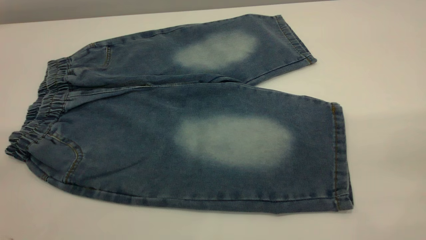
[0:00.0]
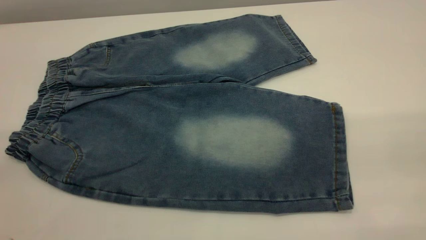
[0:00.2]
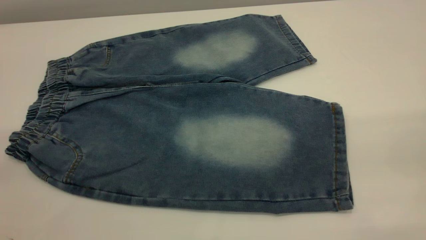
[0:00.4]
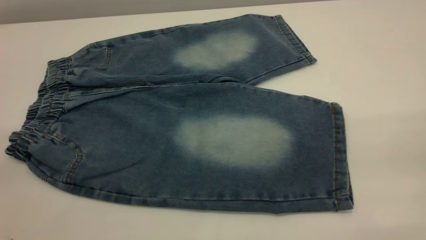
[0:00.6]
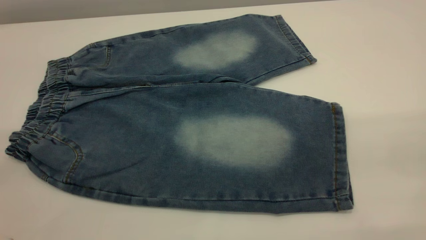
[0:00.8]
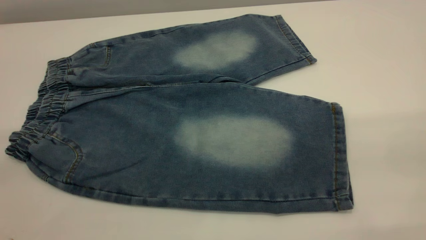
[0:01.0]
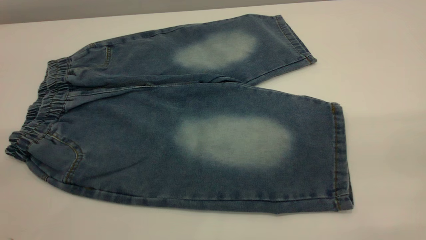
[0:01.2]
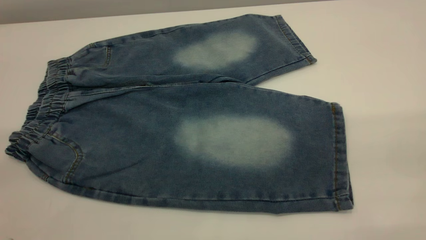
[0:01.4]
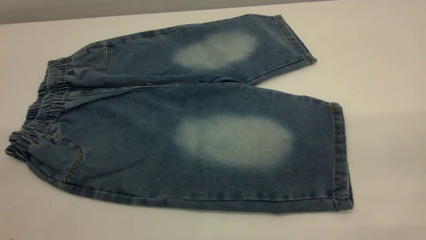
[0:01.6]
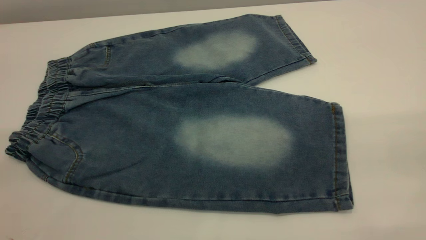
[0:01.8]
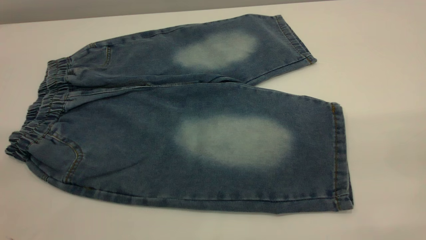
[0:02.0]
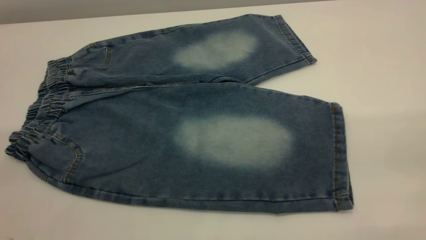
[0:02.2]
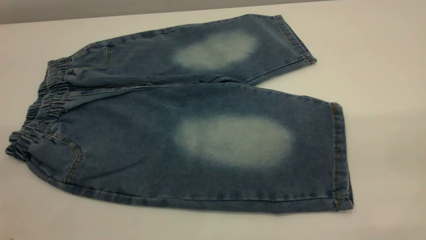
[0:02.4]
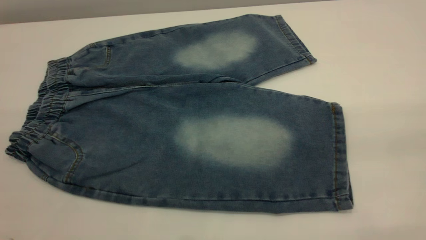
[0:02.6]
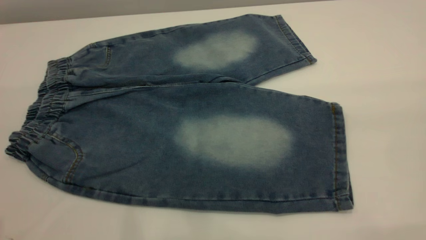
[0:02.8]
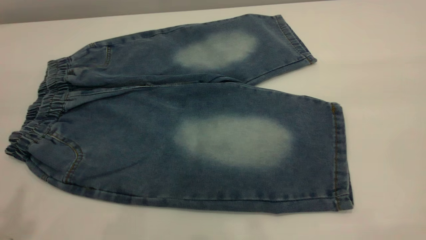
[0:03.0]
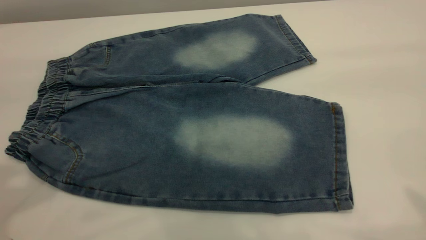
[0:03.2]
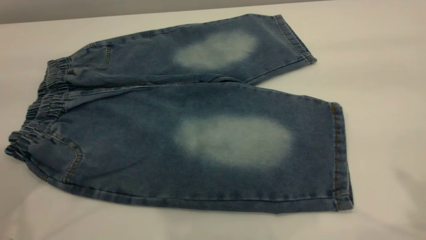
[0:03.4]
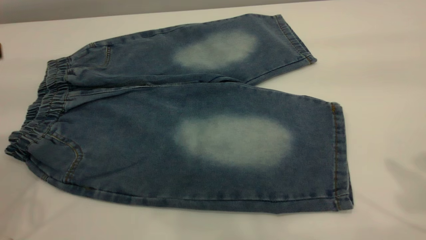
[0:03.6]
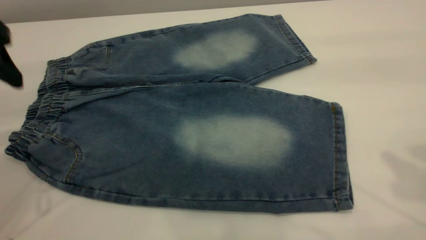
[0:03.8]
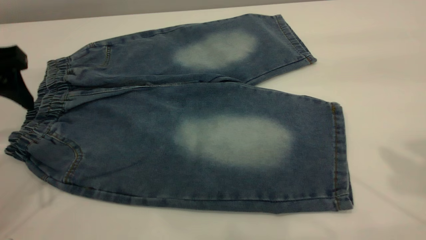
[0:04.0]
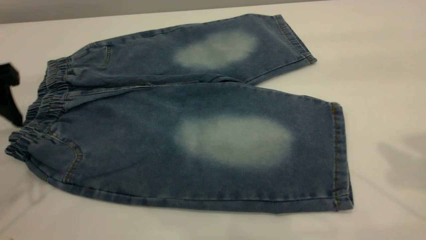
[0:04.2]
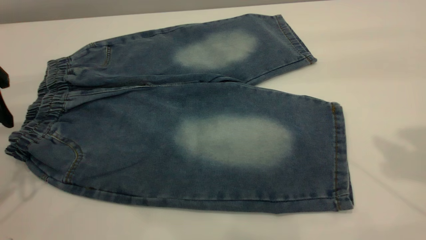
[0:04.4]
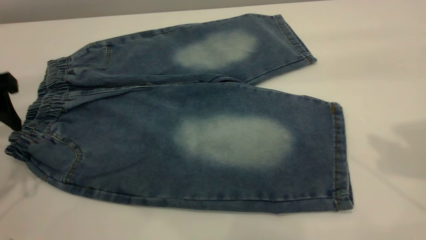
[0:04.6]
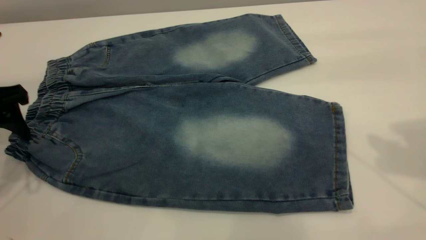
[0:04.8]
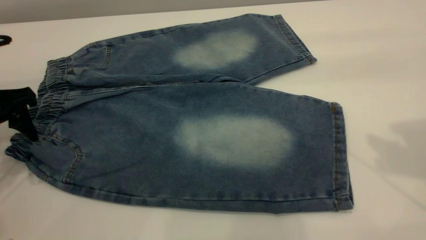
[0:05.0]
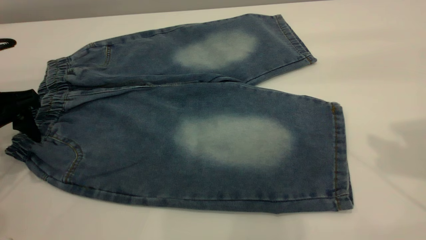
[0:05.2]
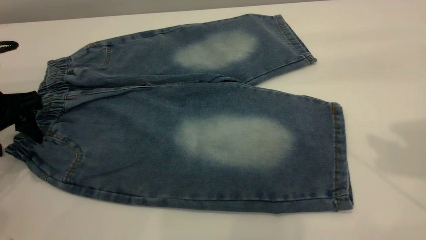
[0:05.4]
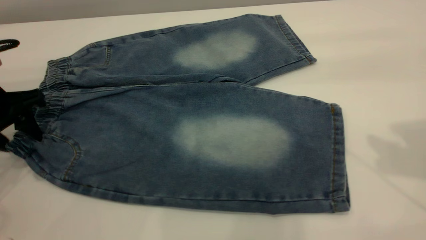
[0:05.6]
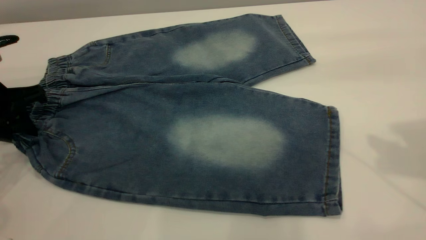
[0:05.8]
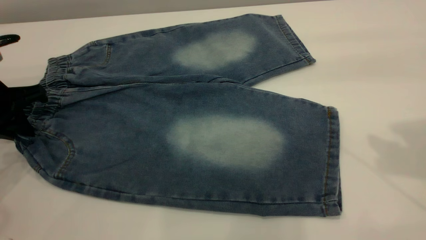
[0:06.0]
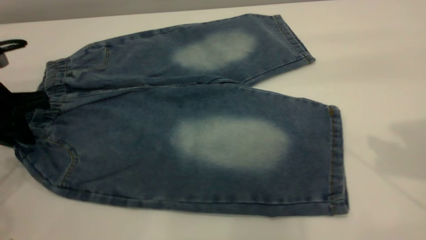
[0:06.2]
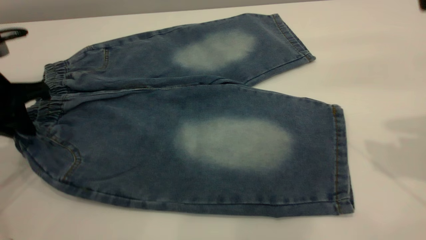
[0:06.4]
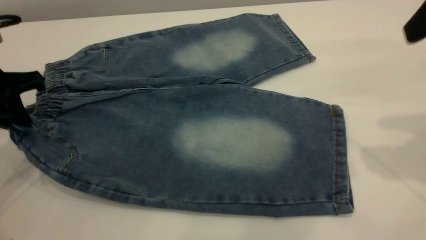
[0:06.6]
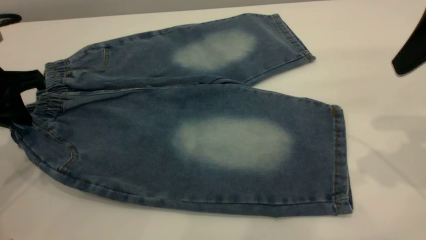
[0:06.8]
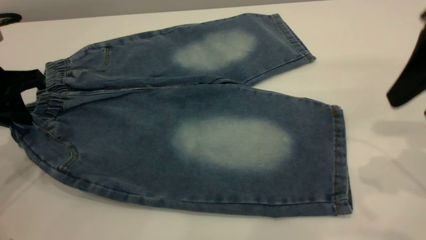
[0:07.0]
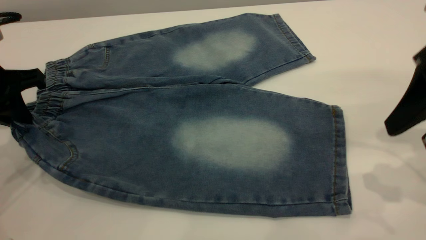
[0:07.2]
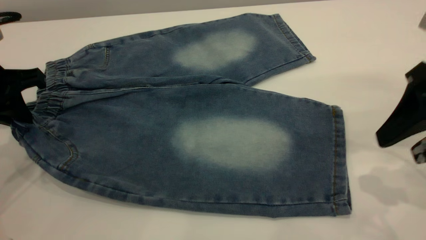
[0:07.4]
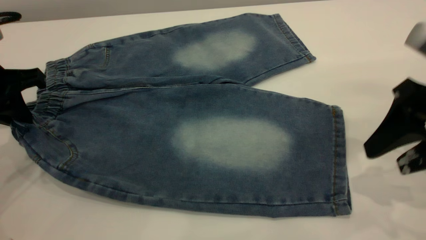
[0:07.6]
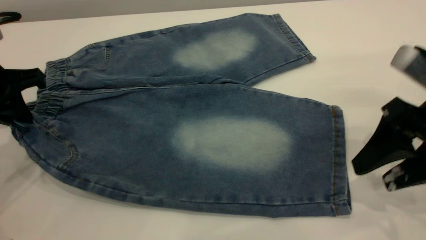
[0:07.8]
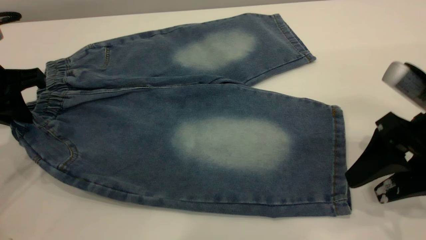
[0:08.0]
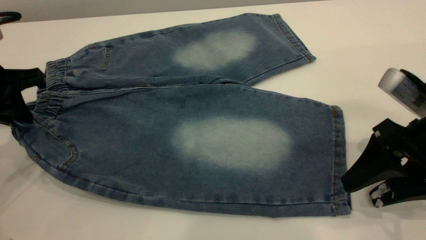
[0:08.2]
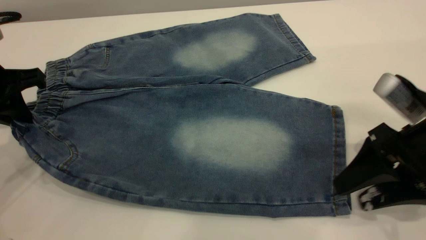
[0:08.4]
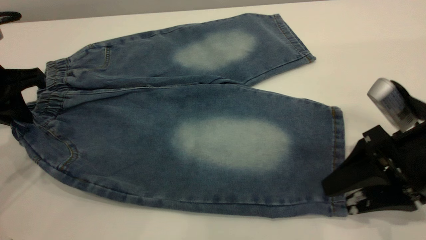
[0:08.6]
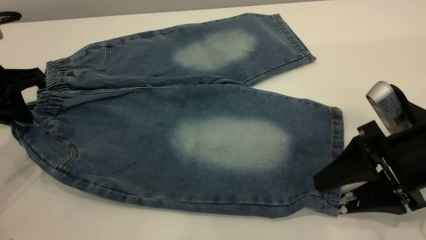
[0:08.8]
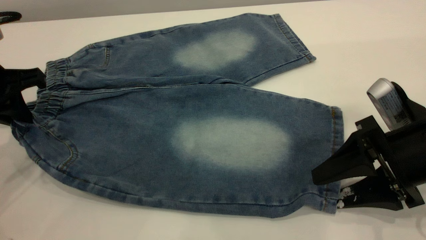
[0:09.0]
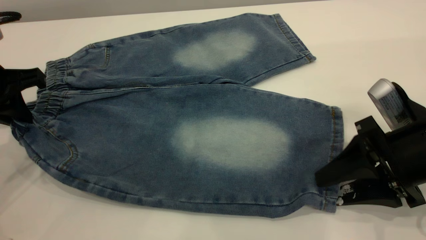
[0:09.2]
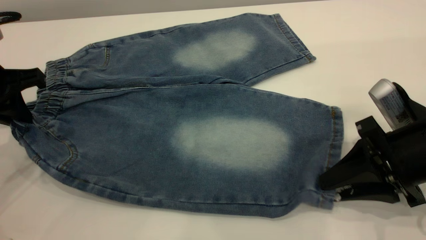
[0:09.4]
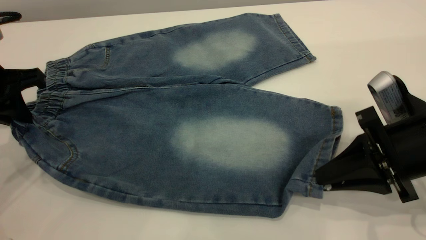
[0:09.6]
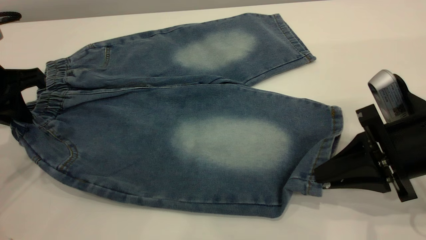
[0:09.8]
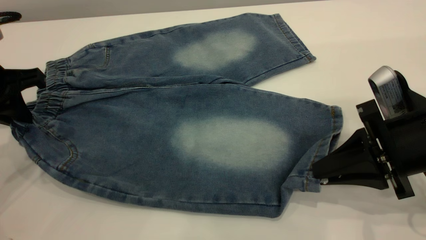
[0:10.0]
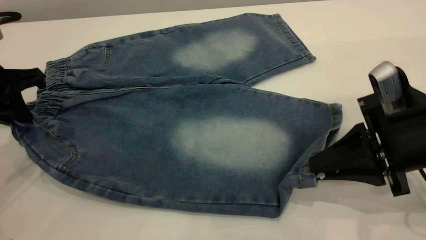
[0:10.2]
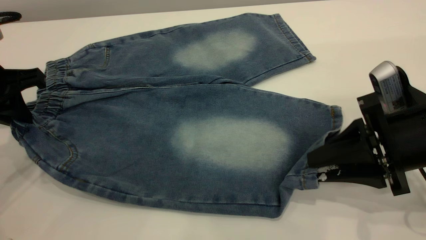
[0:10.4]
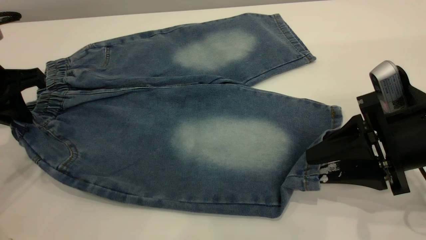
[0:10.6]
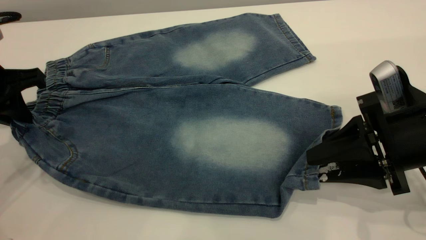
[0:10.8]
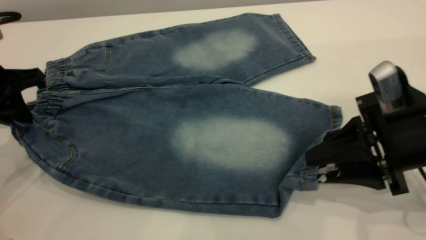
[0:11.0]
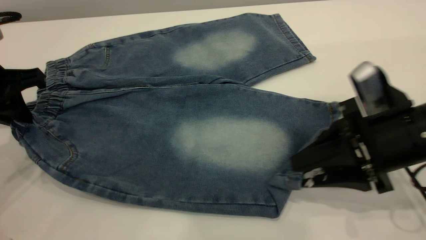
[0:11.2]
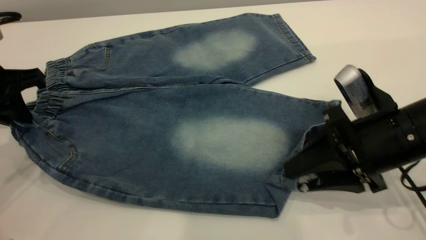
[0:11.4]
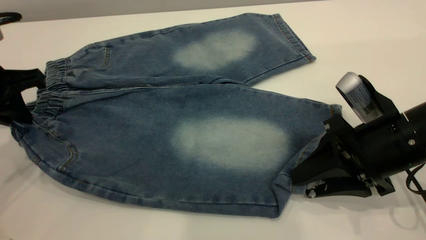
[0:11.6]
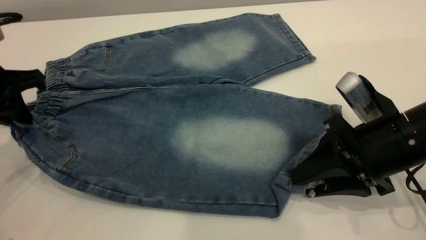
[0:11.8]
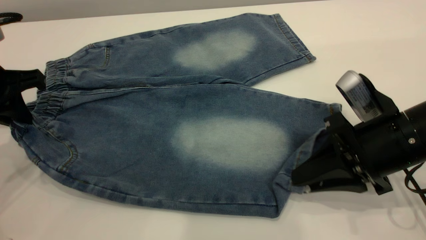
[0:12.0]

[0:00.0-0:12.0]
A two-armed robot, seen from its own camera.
0:00.0 to 0:01.6: Neither gripper changes place.
0:03.0 to 0:04.4: The left gripper shifts about 25 cm downward and forward.
0:04.4 to 0:06.0: The left gripper is displaced downward by some 5 cm, and closes up.
0:06.0 to 0:07.6: The right gripper moves downward, approximately 15 cm.
0:07.6 to 0:09.0: The right gripper moves downward, roughly 5 cm.
0:09.0 to 0:10.4: The right gripper closes up.
0:10.4 to 0:12.0: The right gripper closes its fingers.

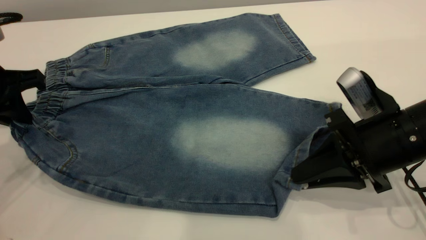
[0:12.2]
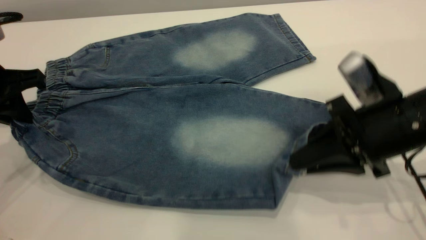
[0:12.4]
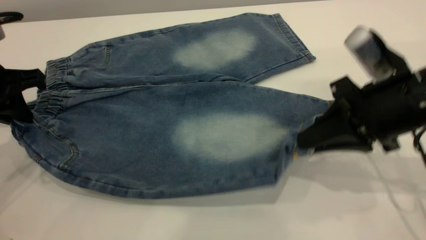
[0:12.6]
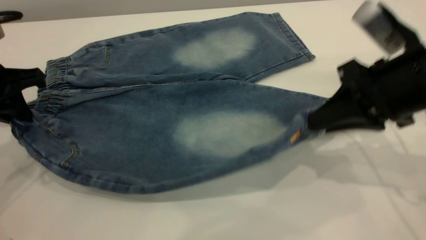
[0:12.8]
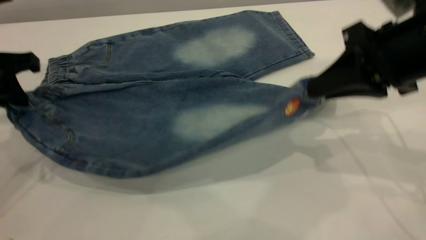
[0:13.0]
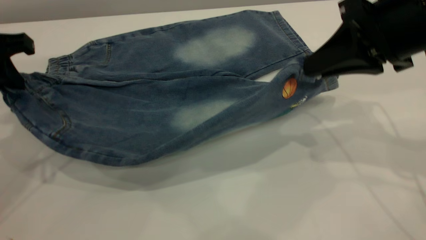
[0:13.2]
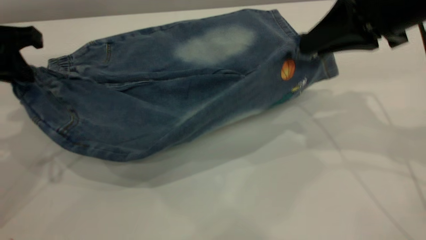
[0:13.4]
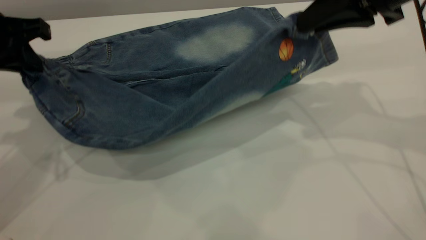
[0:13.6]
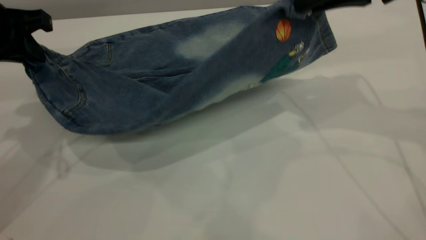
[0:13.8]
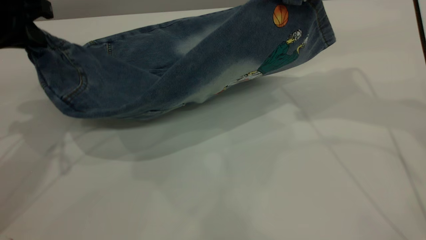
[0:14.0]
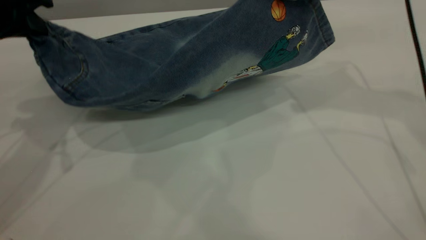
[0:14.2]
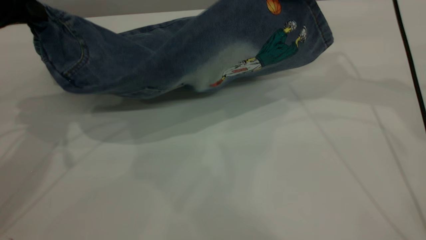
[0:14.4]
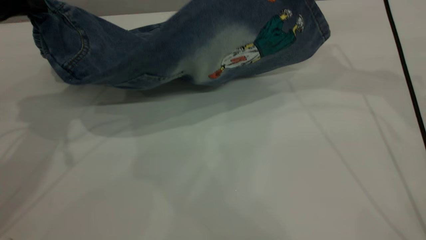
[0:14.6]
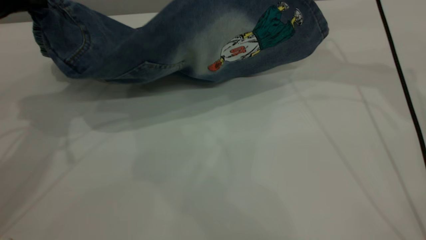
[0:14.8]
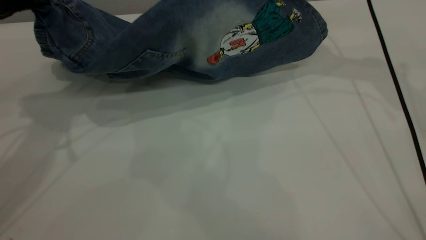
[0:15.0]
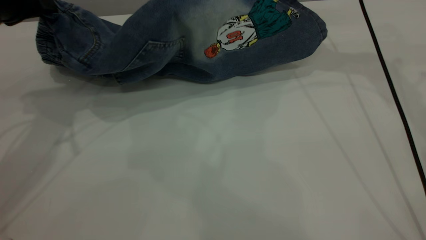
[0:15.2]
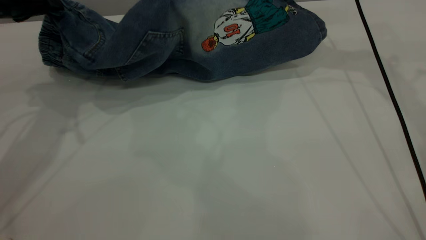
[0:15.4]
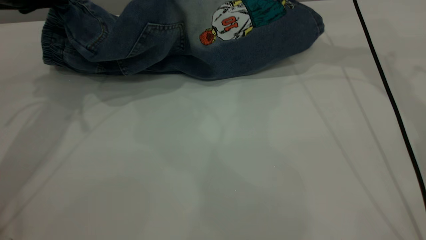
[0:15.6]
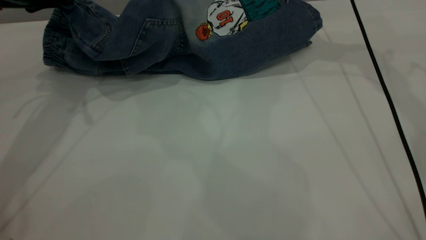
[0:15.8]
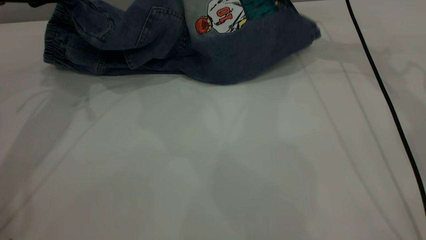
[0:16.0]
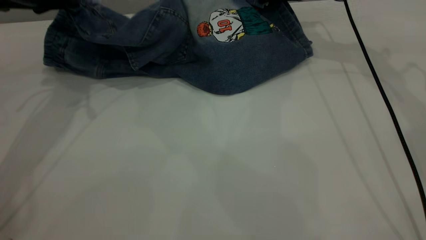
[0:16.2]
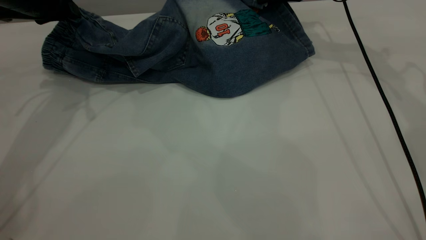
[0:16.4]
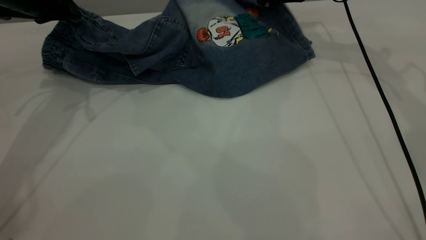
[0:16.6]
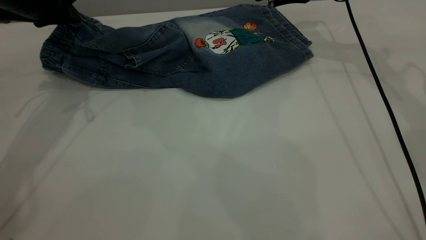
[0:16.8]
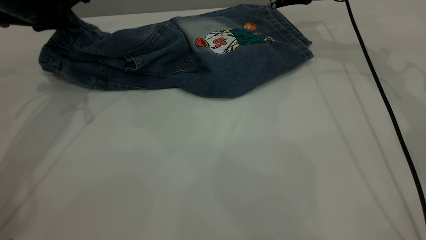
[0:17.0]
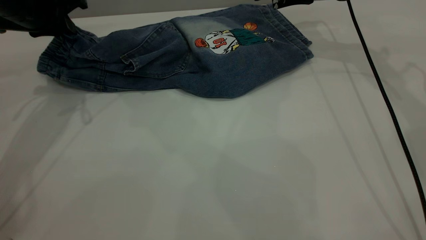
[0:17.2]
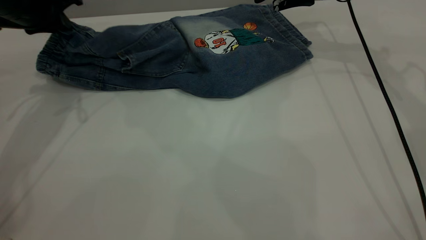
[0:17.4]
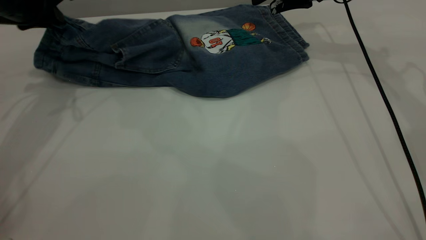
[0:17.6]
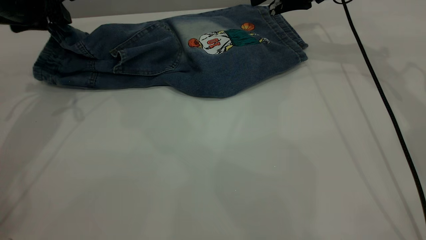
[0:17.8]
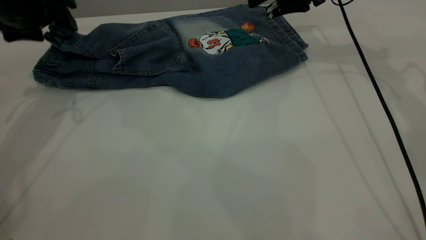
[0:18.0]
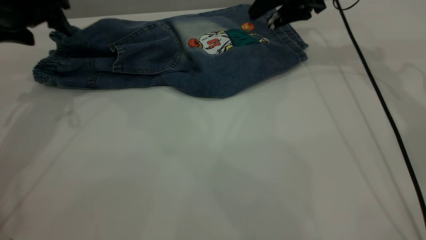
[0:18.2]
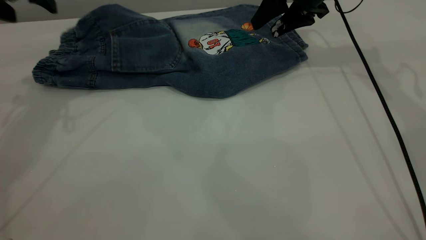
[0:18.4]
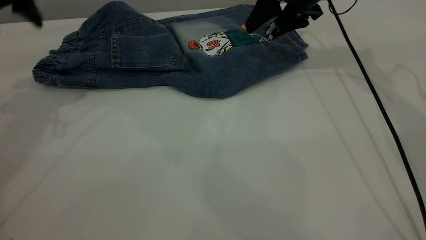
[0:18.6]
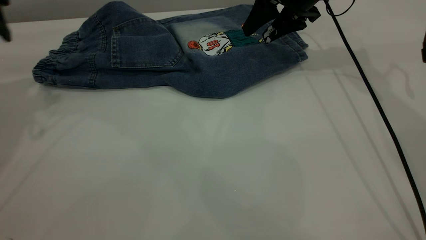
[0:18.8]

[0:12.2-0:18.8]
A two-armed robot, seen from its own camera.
Step, 0:12.2 to 0:18.0: Fold the bottom of the pants upward.
0:12.2 to 0:13.8: The right gripper goes roughly 20 cm upward and forward. The left gripper goes roughly 5 cm upward.
0:13.8 to 0:15.4: The right gripper moves forward, roughly 15 cm, while the left gripper is displaced forward by about 5 cm.
0:15.4 to 0:17.2: The right gripper opens up.
0:17.2 to 0:18.8: The left gripper shifts some 10 cm to the left and upward, and opens up.
